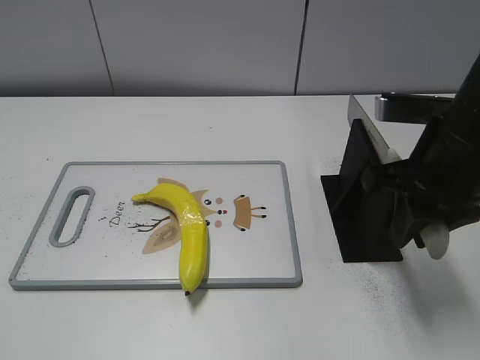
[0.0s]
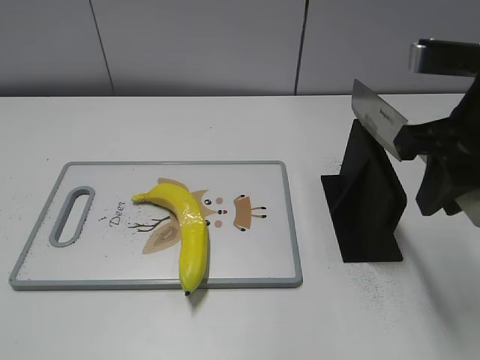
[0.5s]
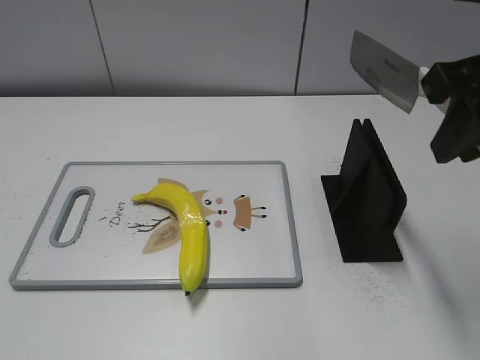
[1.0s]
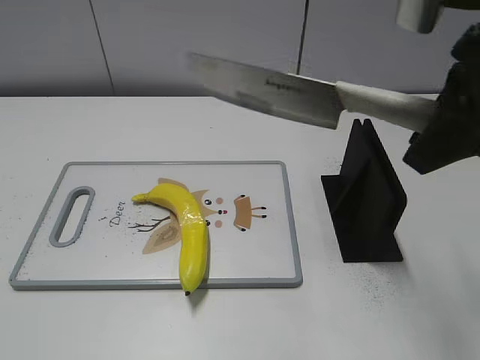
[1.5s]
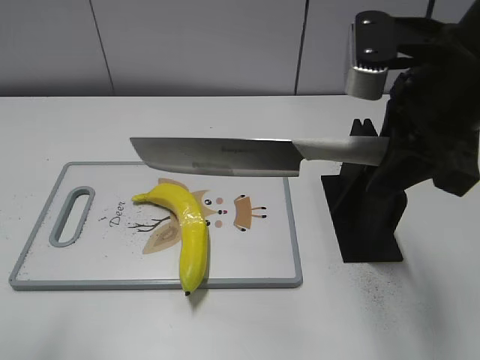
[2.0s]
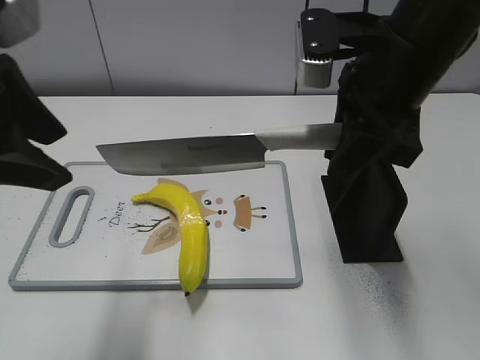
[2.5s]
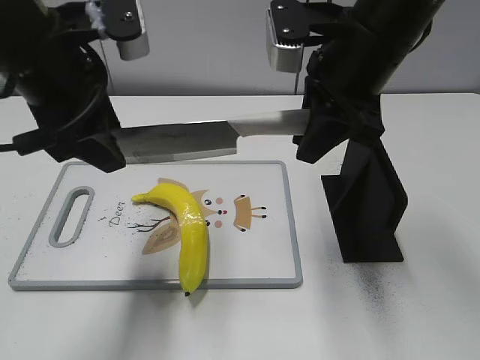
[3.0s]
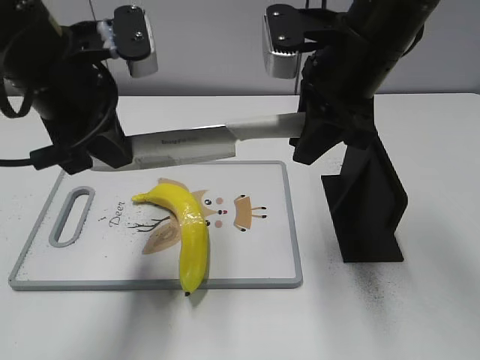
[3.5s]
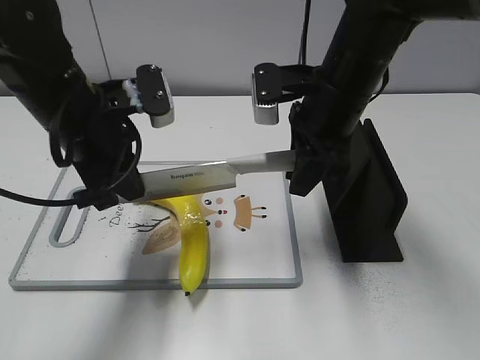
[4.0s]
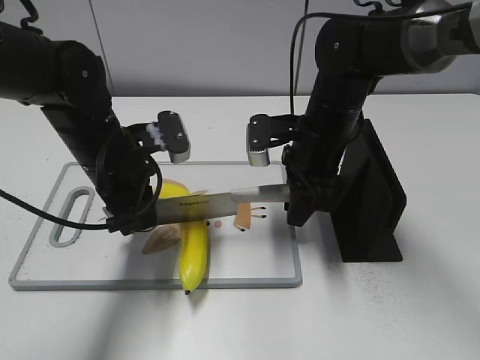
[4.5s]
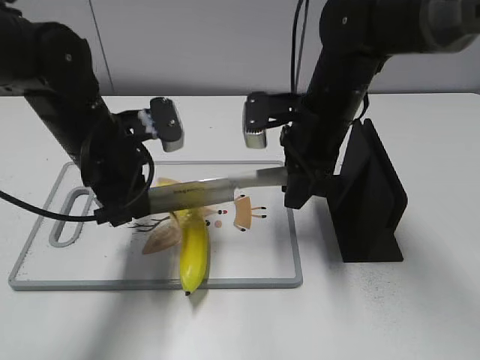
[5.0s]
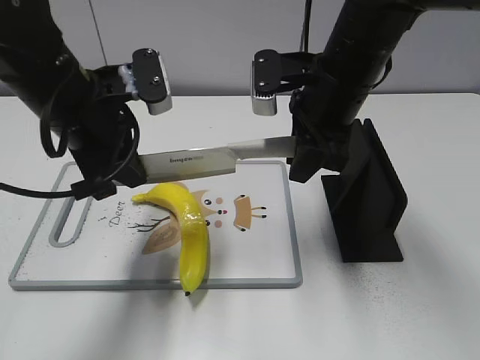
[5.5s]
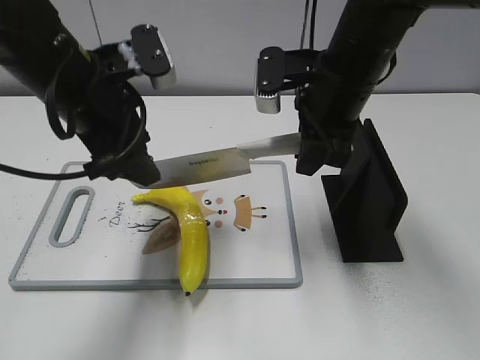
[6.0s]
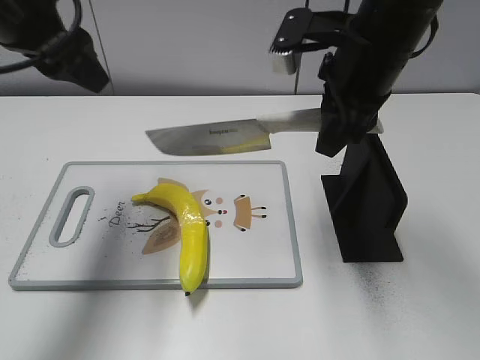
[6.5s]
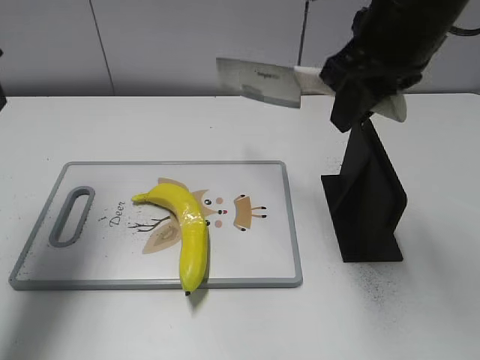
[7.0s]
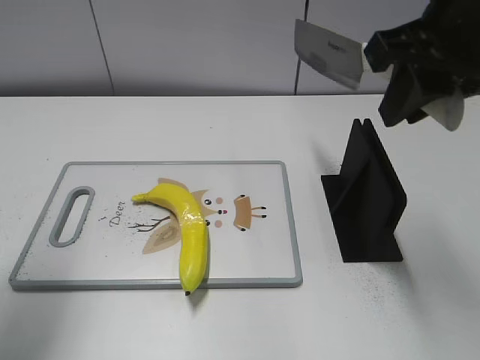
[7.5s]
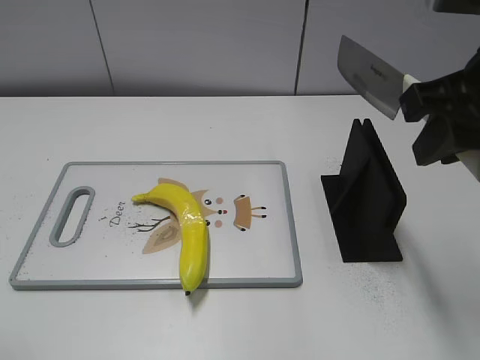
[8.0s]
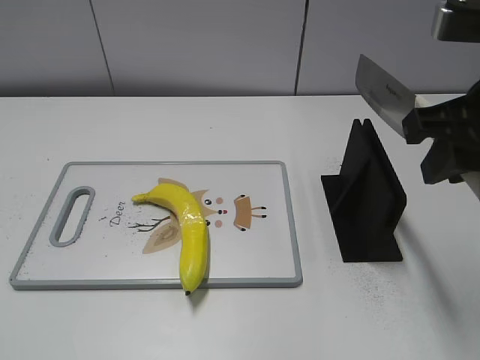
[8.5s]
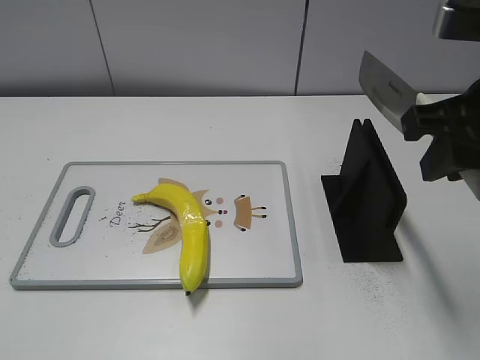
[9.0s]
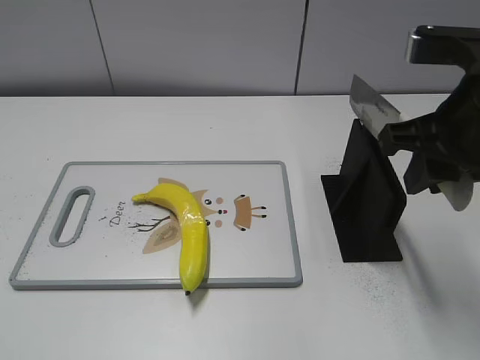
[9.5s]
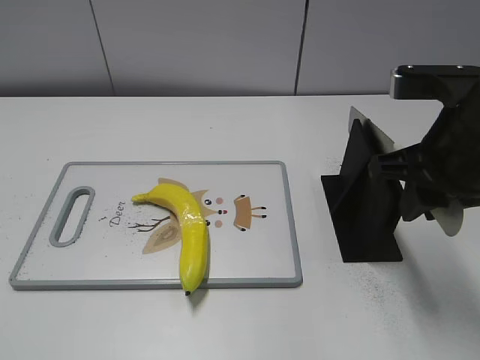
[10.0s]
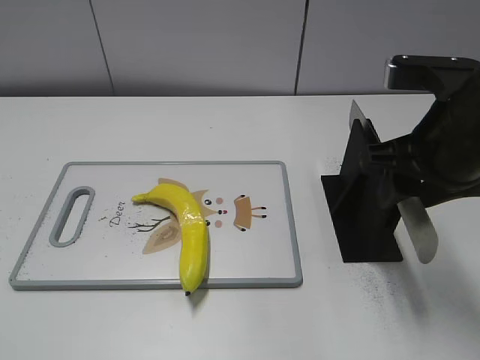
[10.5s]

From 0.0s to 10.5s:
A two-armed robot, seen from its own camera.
Task of the whole recording: cut plastic banana.
Step, from 1.0s to 5.5s: Lift the knife with your right hand.
Step, from 6.0s to 7.0s: Cut the banana with your right hand.
Step, from 7.5s to 8.0s: Secure the blade with your left hand.
From 0.0s to 2.0s: The right gripper is displaced upward by approximately 5 cm. Meanwhile the left gripper is displaced forward and upward by some 10 cm.
From 2.0s to 4.0s: The right gripper heads forward, downward and to the left, covering some 15 cm. The left gripper moves forward, to the right and downward, approximately 25 cm, and closes its fingers.
From 4.0s to 6.5s: The right gripper is displaced upward by roughly 5 cm; the left gripper heads upward and to the left, covering roughly 15 cm, and opens.
From 6.5s to 8.5s: The right gripper moves backward and to the right, roughly 15 cm. The left gripper is displaced backward by roughly 30 cm.
From 8.5s to 10.5s: The right gripper travels downward by about 5 cm, and opens.

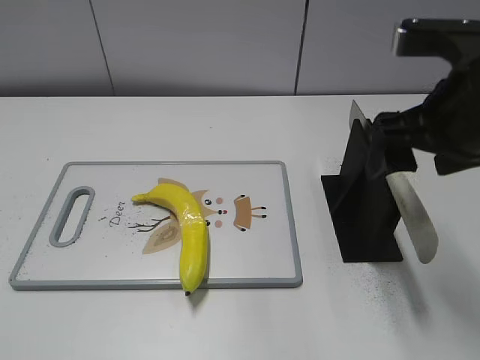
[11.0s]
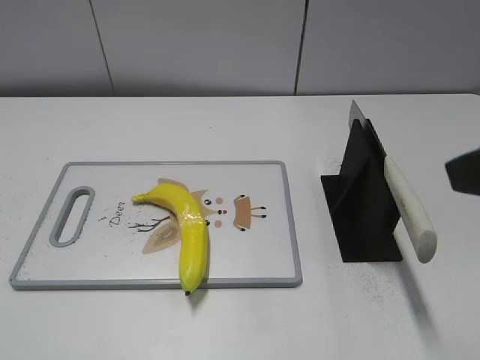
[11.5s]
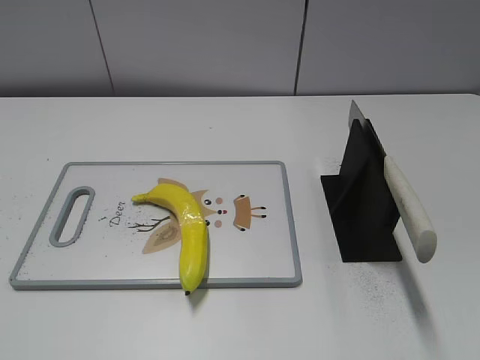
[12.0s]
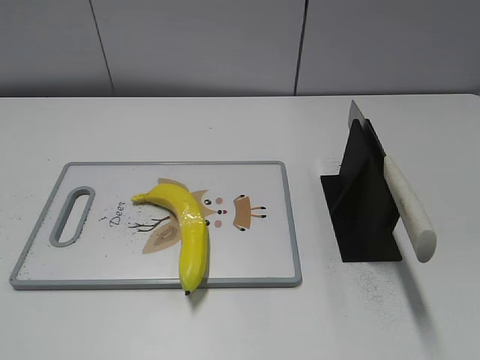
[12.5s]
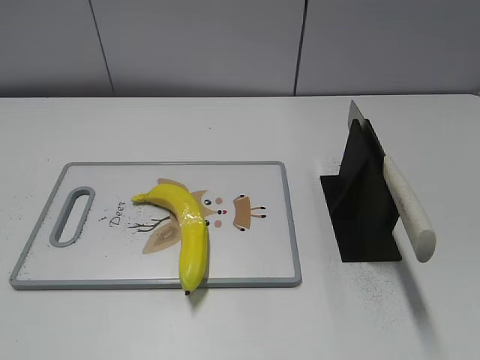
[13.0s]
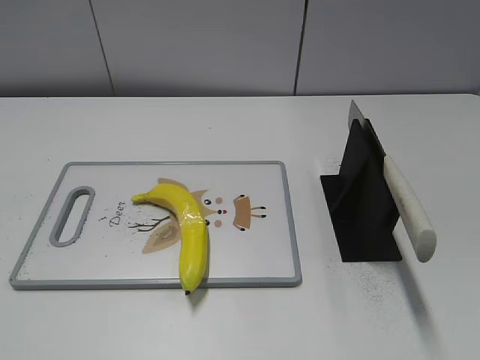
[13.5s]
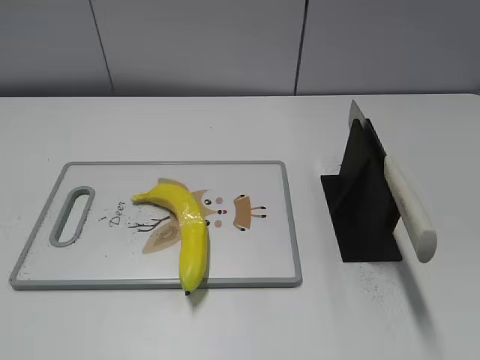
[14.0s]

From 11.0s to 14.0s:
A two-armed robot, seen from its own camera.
Task of the whole recording: cut plastic banana.
Step, from 11.0s to 14.0s: Place the knife on the storage rack with your right hand.
From 11.0s to 12.5s: The right gripper is displaced backward and to the right by roughly 25 cm.
